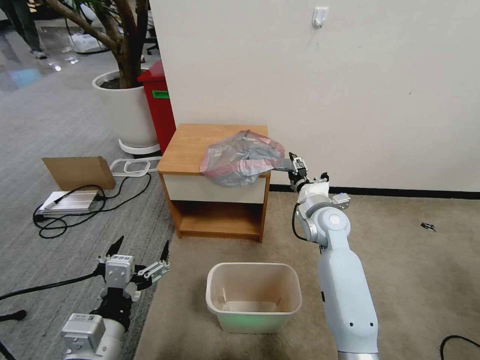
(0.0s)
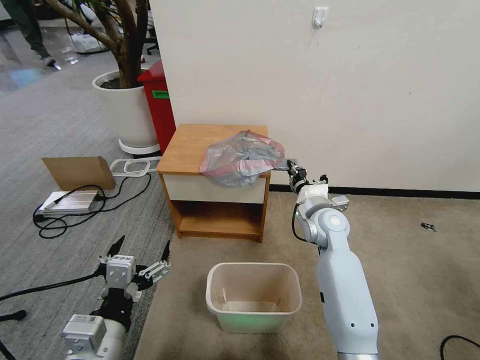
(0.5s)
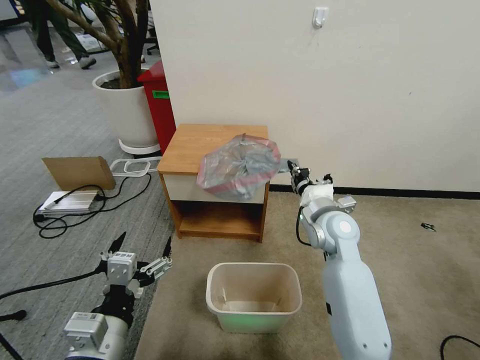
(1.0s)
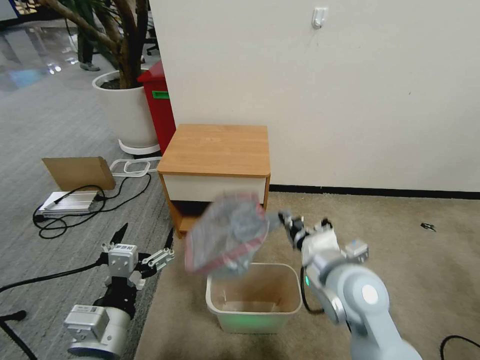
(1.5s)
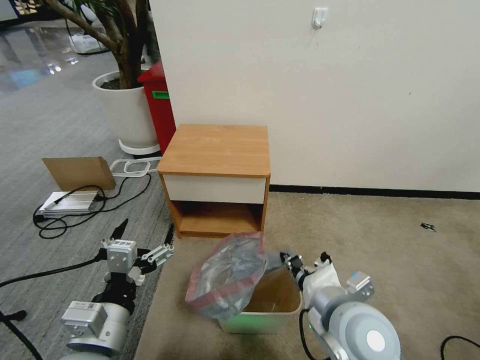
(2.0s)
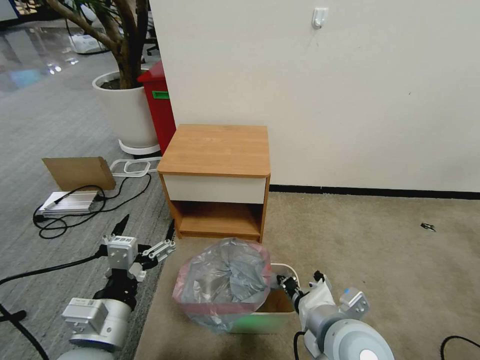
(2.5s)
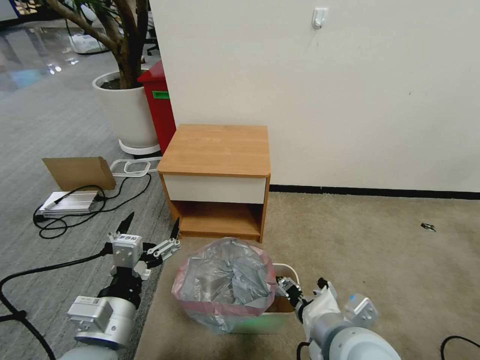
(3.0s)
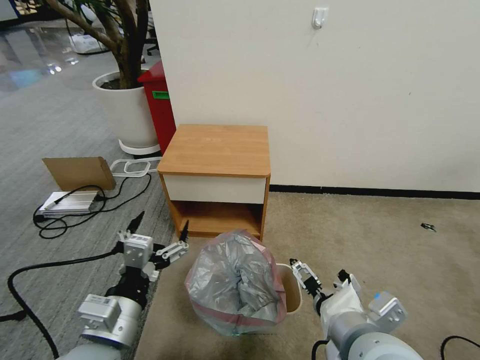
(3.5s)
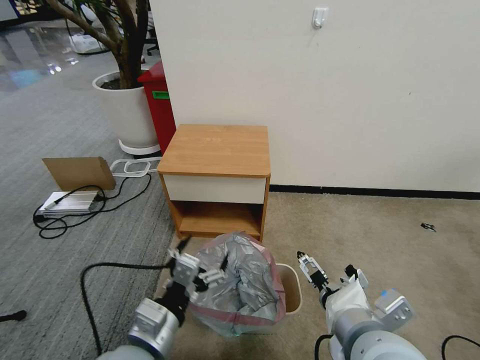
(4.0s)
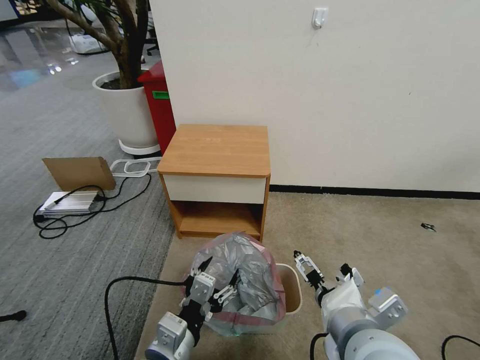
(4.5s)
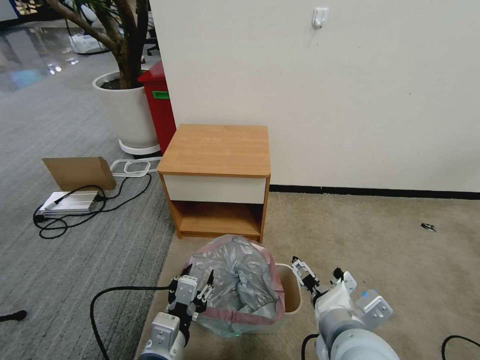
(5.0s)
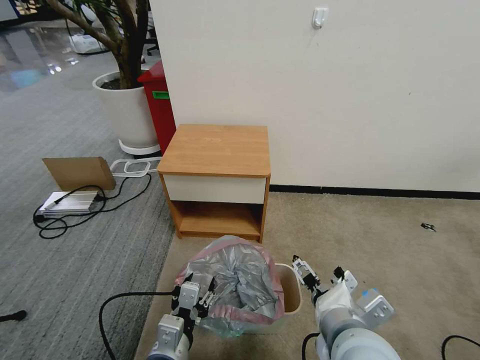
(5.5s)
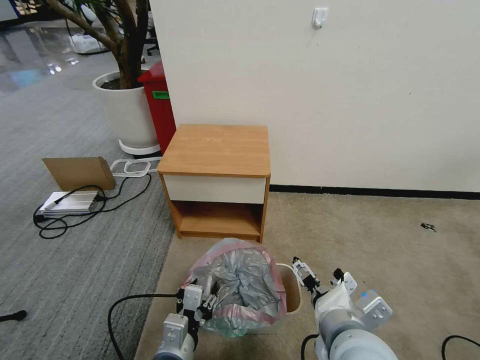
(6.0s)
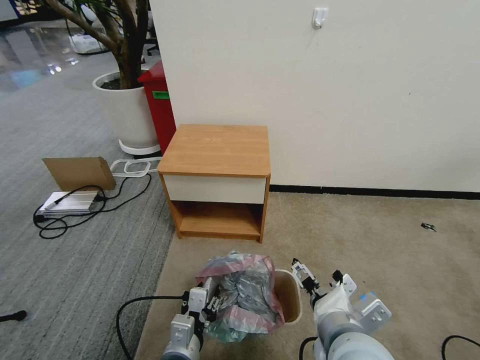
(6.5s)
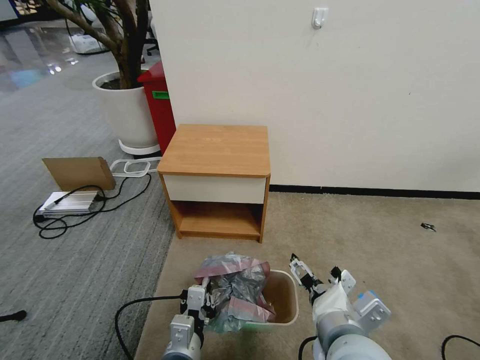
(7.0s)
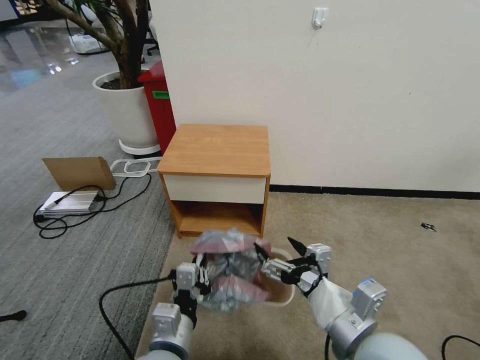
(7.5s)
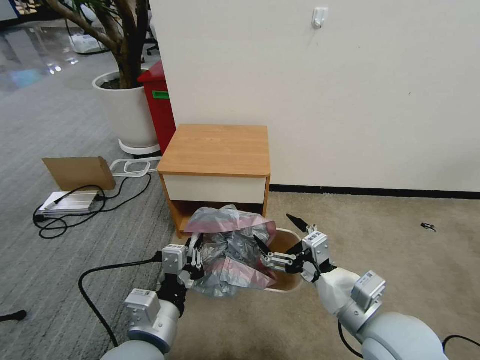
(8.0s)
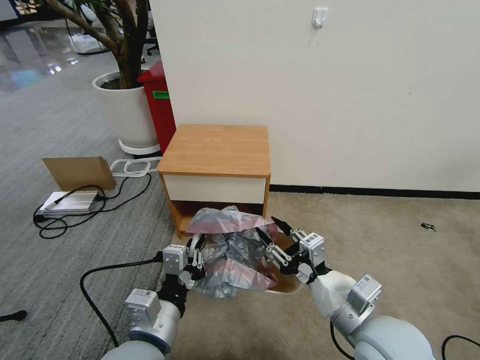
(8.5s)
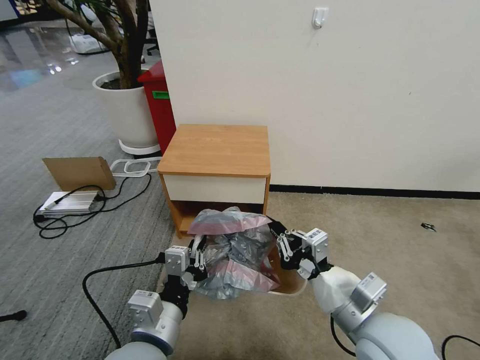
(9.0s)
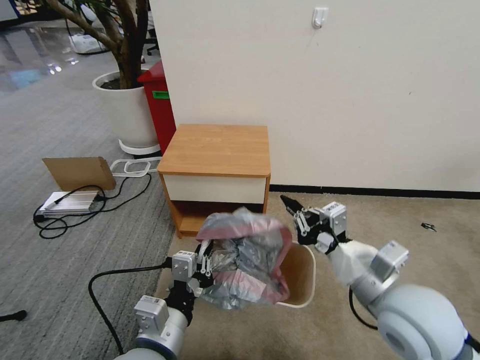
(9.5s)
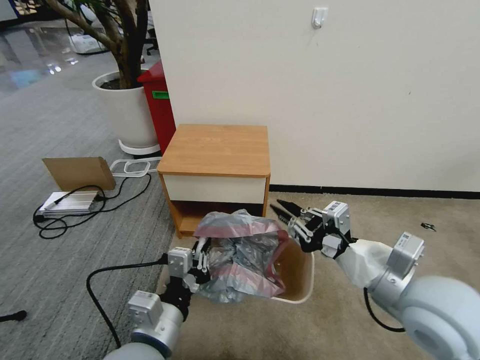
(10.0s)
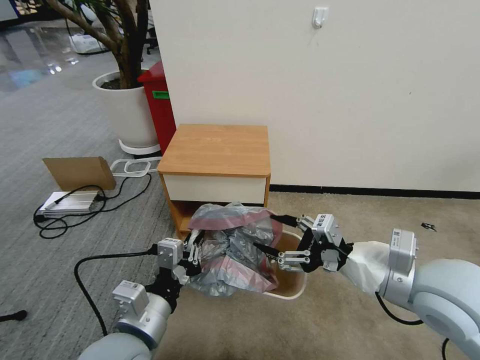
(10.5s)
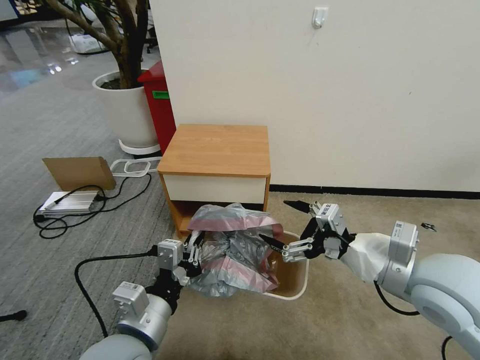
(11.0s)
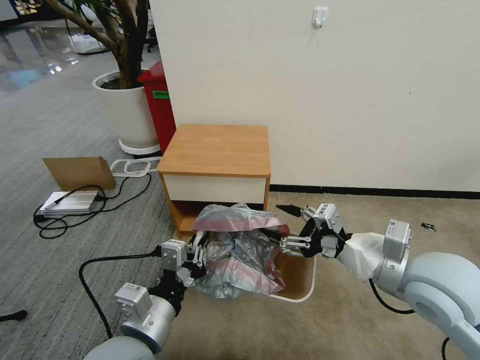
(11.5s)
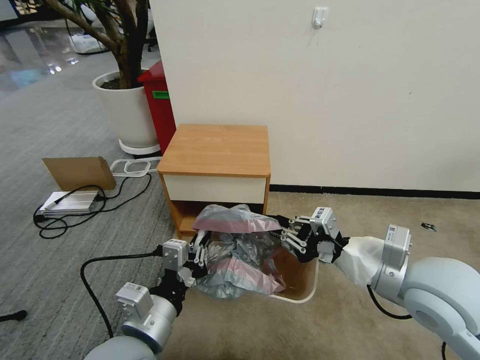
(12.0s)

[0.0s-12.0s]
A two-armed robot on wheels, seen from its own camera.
Task of the whole recording: Pick up the garbage bag from the table and place it over the trash can.
0.0s to 2.0s: The right gripper moves backward, approximately 25 cm, and closes.
2.0s to 4.0s: The left gripper moves approximately 5 cm, while the right gripper changes place by approximately 5 cm, and opens.
4.0s to 6.0s: The left gripper goes about 10 cm downward, and closes.
6.0s to 8.0s: The right gripper moves to the right, some 5 cm, while the left gripper travels upward by some 10 cm, and closes its fingers.
8.0s to 10.0s: The right gripper shifts roughly 5 cm upward, and closes.
10.0s to 12.0s: The right gripper opens and closes again.

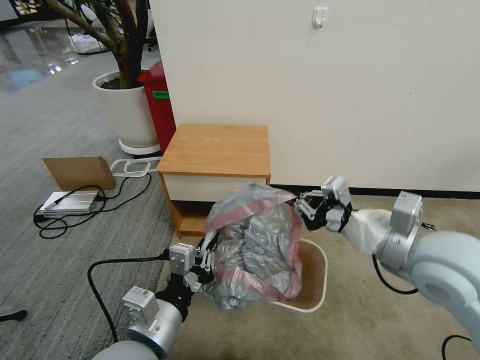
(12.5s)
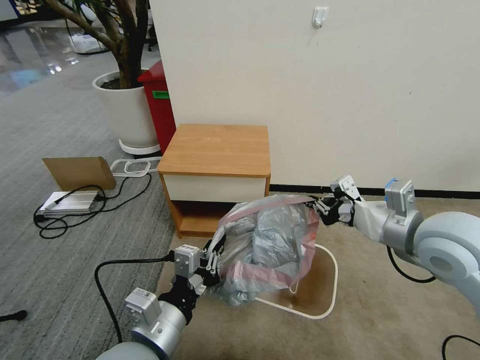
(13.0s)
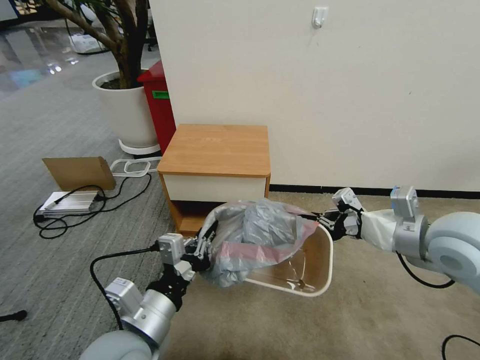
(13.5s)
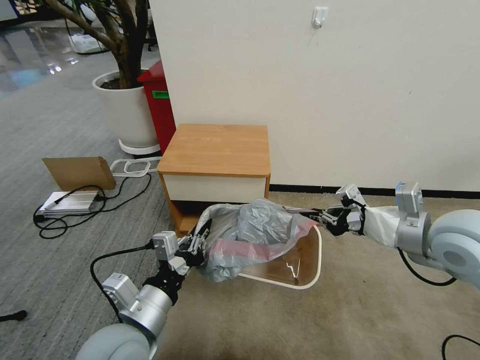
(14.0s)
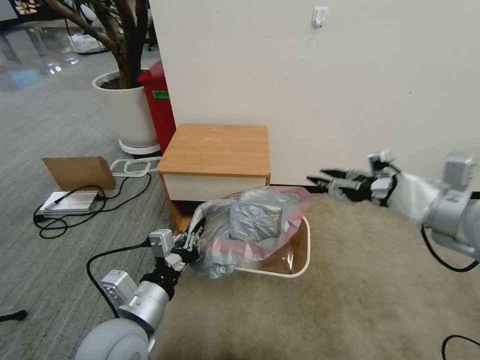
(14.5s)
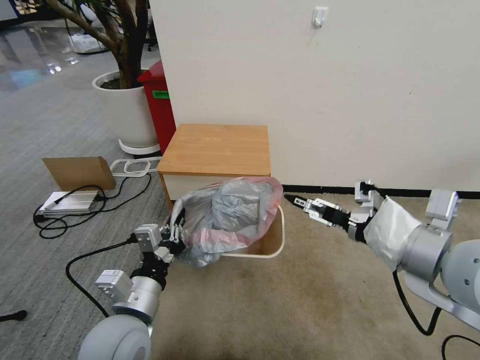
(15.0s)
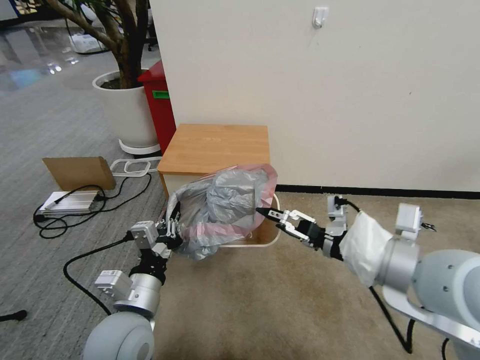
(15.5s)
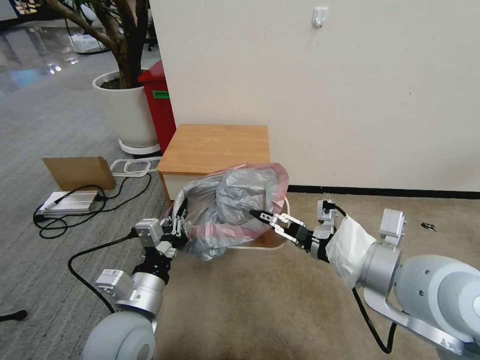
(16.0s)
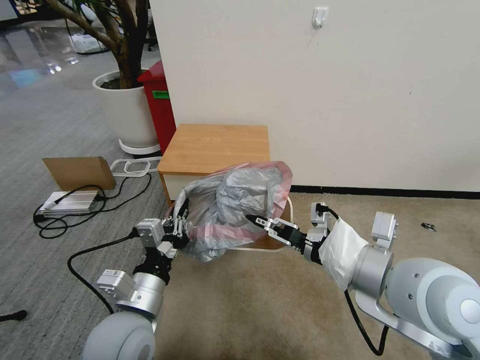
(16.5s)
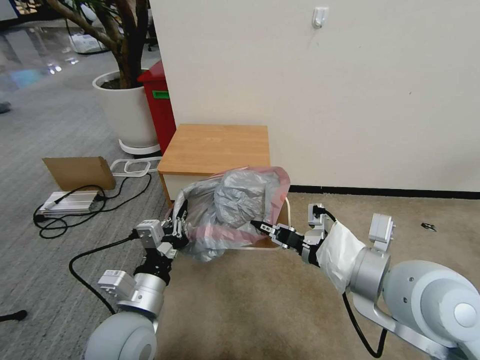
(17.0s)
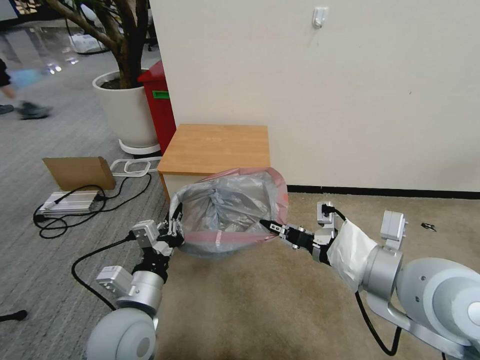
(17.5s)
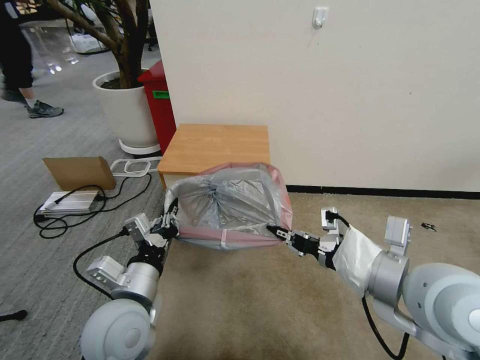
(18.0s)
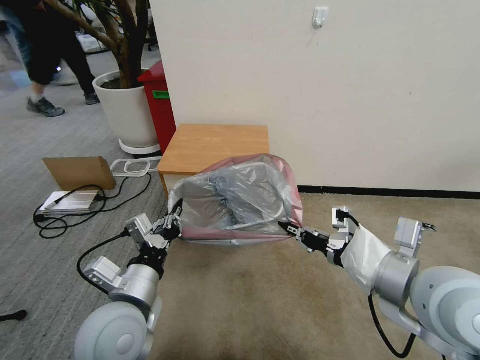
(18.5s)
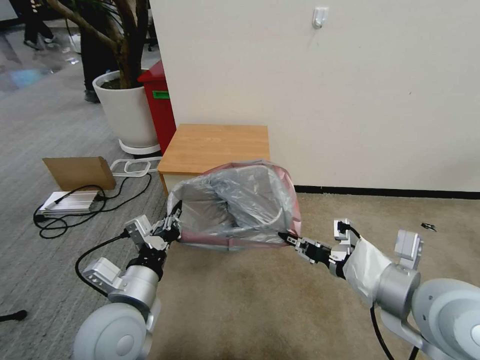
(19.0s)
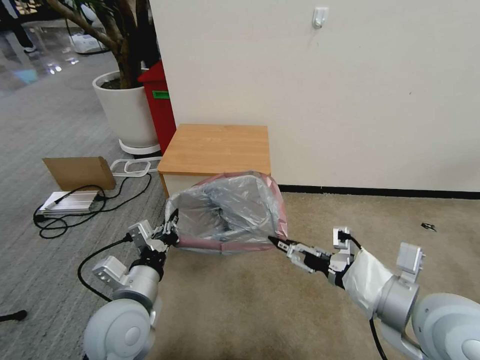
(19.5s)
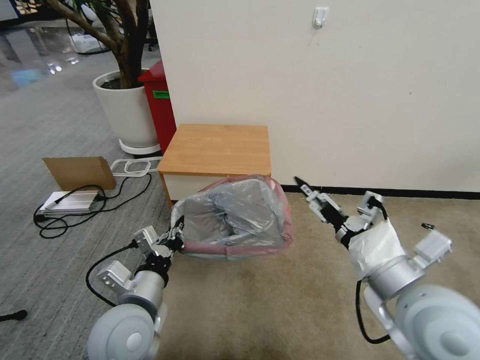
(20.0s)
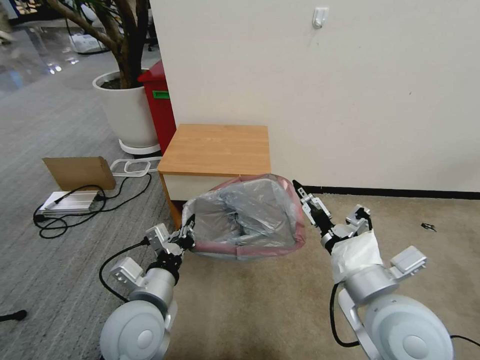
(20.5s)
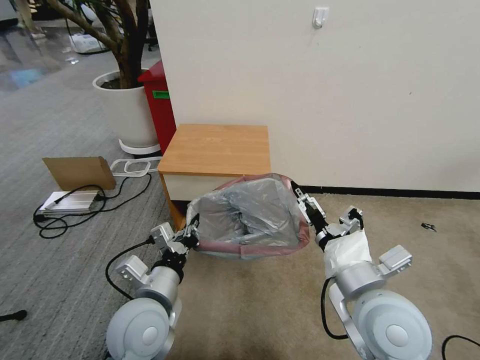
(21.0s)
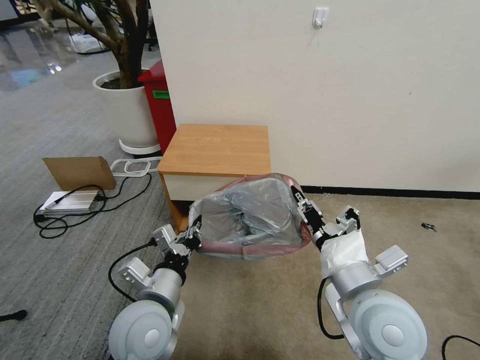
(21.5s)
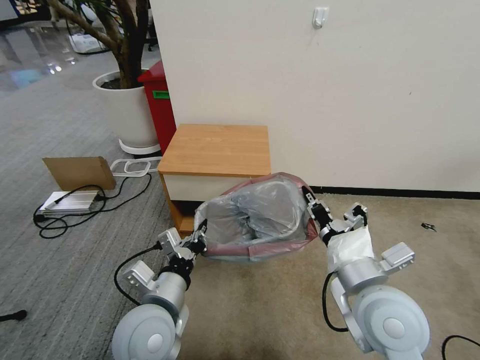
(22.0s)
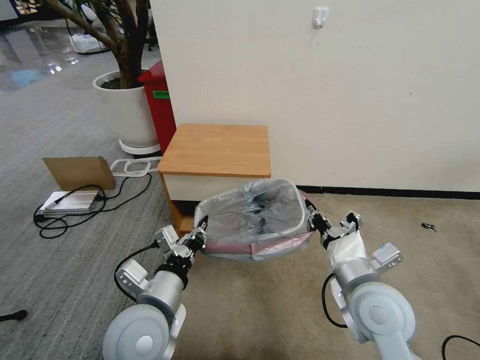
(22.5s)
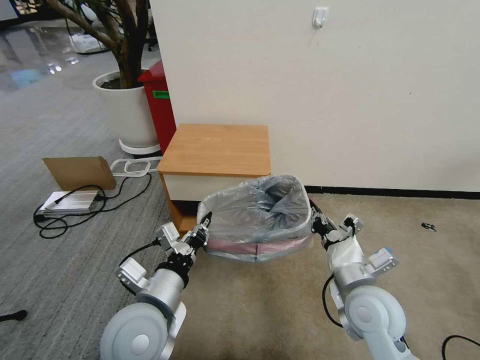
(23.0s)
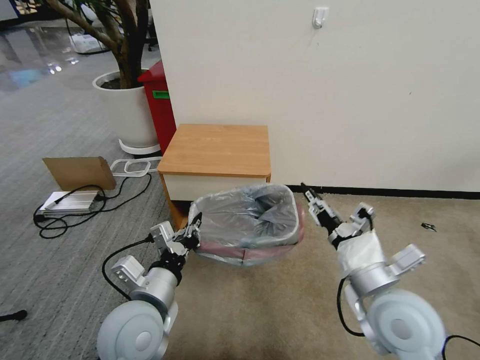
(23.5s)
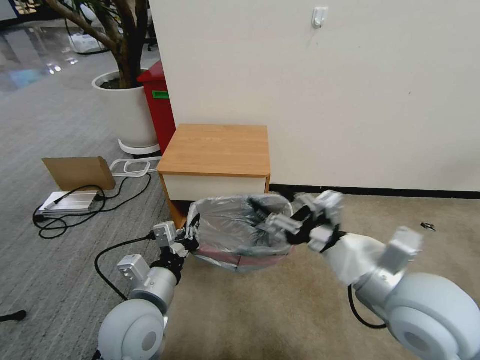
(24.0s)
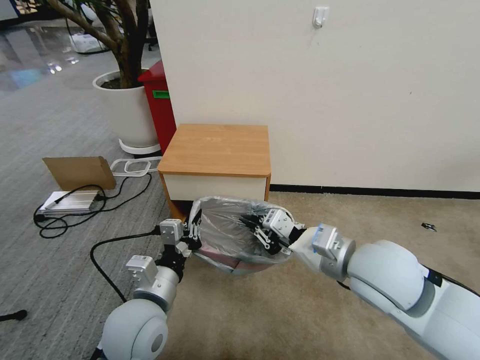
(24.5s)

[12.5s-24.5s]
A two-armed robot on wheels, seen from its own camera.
Task of the whole recording: Pick up the garbage bag from the table and place it over the trash can.
12.5s to 14.5s: The right gripper is displaced to the right and upward by roughly 10 cm, and opens.
14.5s to 16.5s: The right gripper travels to the left, backward and downward by about 15 cm, and opens and closes again.
16.5s to 18.5s: The right gripper closes its fingers.
18.5s to 20.5s: The right gripper shifts approximately 5 cm to the left and downward, and opens.
20.5s to 22.5s: The right gripper heads downward, covering some 5 cm, and closes.
22.5s to 24.5s: The right gripper is displaced upward by approximately 10 cm, and opens and closes again.

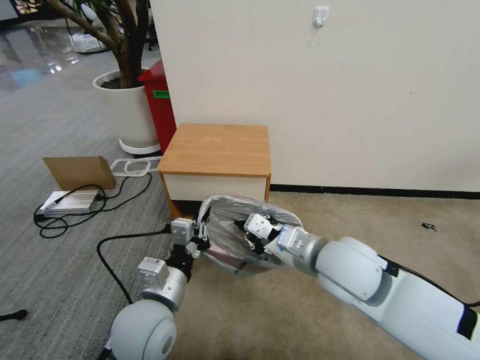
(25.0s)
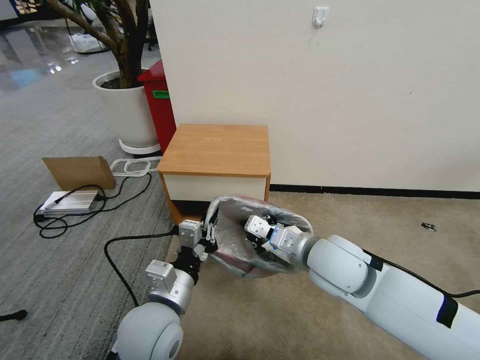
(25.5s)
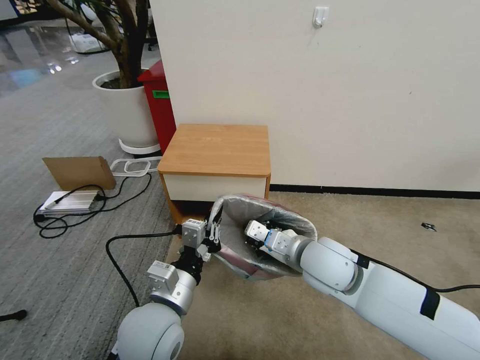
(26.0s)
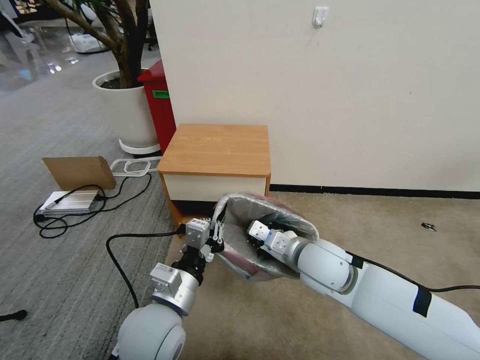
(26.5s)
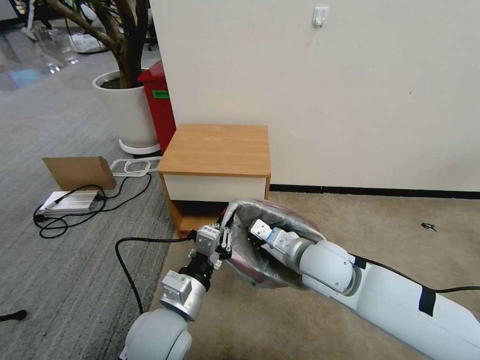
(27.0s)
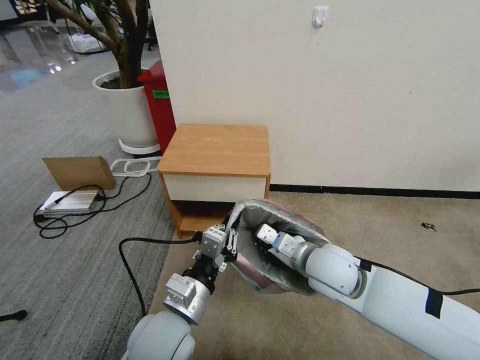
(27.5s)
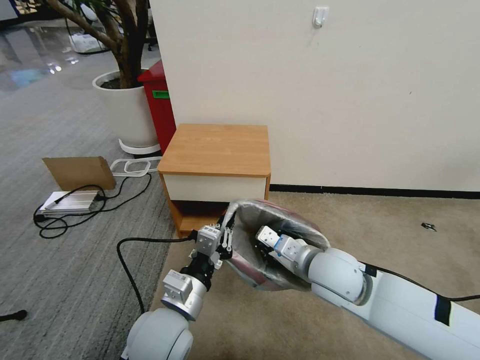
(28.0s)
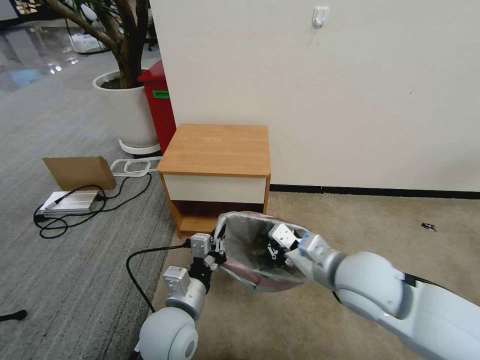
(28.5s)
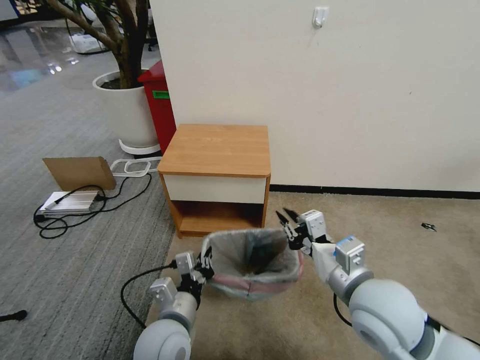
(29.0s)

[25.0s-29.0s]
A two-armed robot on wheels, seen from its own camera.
Task of the whole recording: Pick up the garbage bag from the table and place it over the trash can.
25.0s to 27.0s: The right gripper goes approximately 5 cm downward.
27.0s to 29.0s: The right gripper is displaced backward and to the right by roughly 10 cm. The left gripper goes some 5 cm downward.
